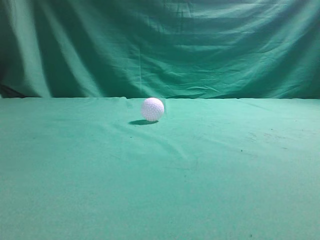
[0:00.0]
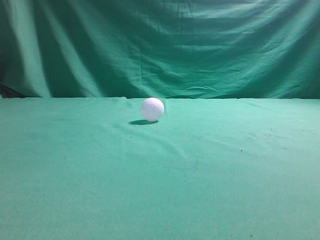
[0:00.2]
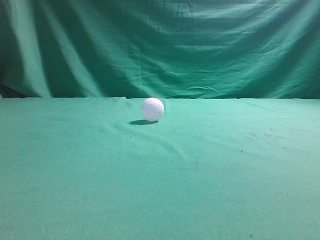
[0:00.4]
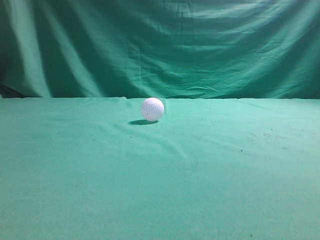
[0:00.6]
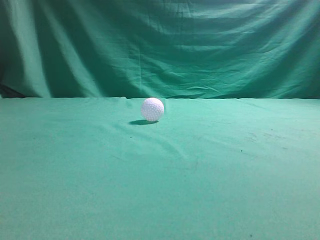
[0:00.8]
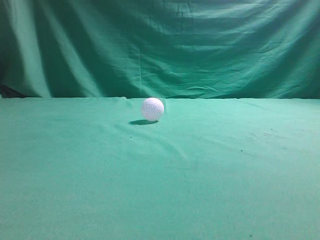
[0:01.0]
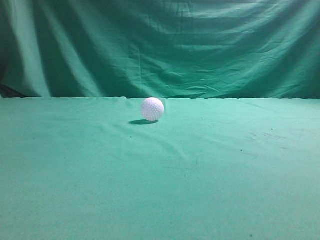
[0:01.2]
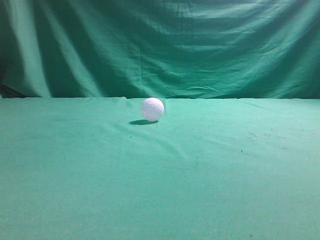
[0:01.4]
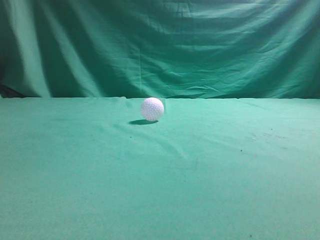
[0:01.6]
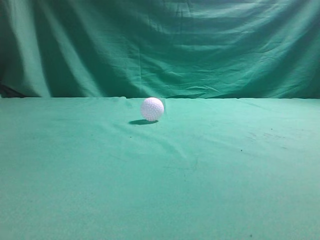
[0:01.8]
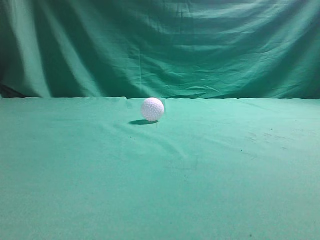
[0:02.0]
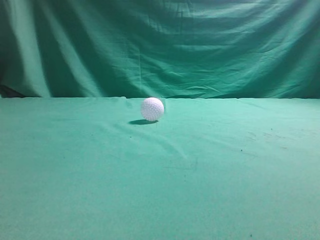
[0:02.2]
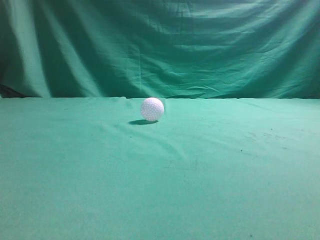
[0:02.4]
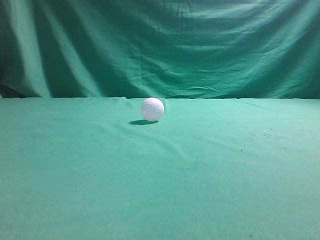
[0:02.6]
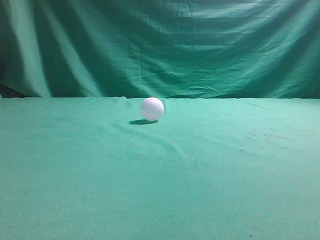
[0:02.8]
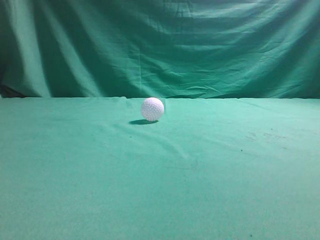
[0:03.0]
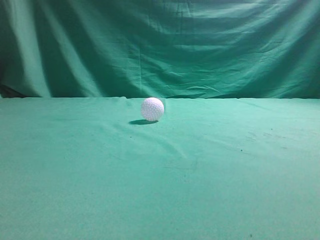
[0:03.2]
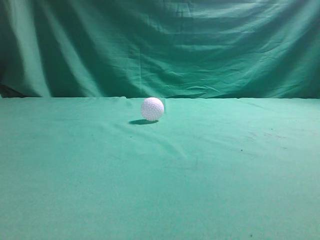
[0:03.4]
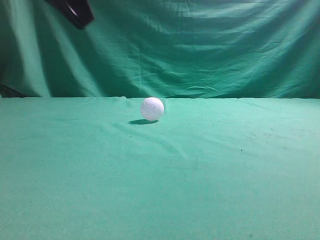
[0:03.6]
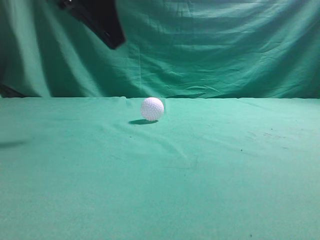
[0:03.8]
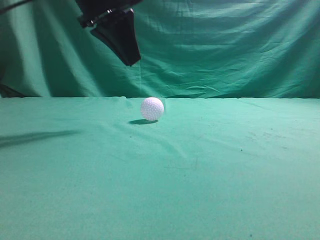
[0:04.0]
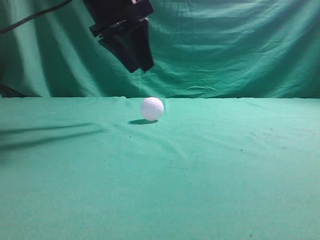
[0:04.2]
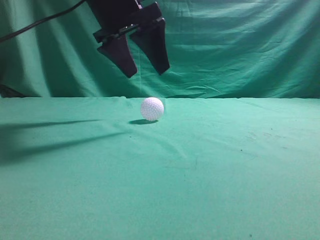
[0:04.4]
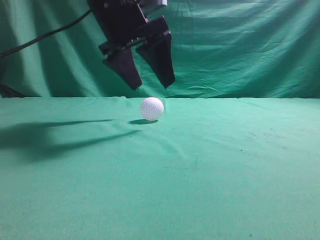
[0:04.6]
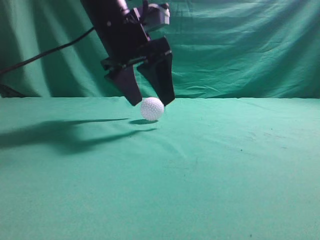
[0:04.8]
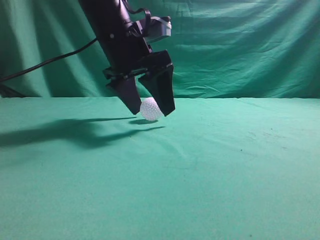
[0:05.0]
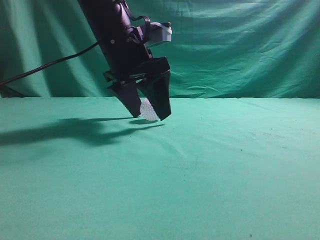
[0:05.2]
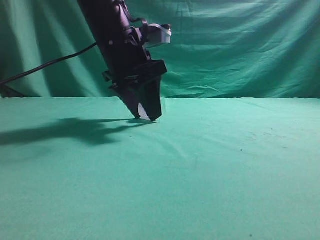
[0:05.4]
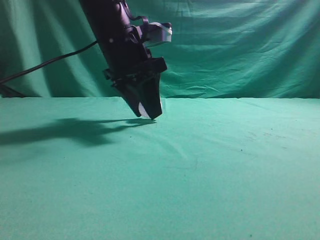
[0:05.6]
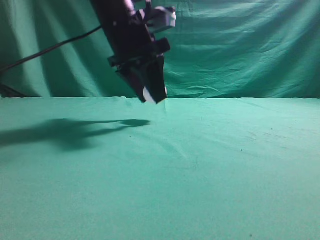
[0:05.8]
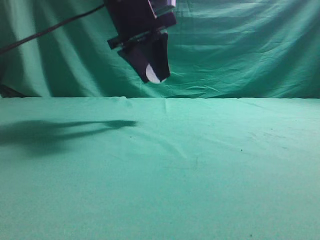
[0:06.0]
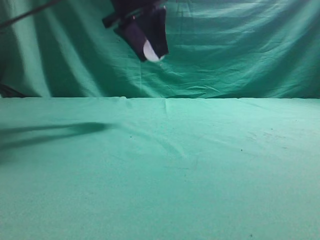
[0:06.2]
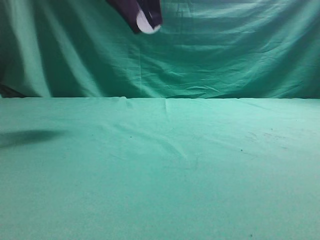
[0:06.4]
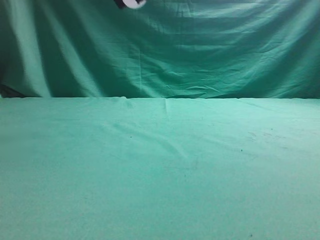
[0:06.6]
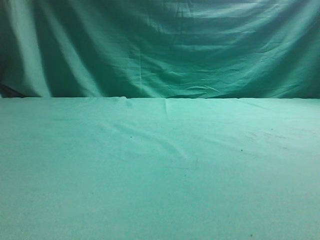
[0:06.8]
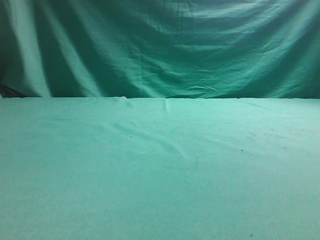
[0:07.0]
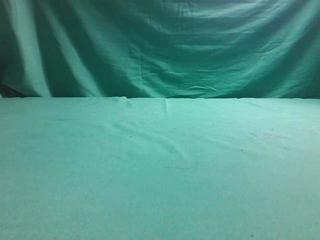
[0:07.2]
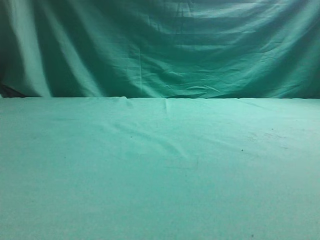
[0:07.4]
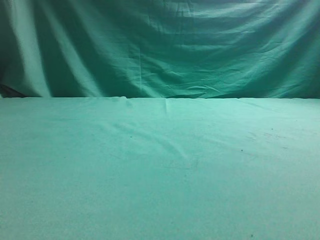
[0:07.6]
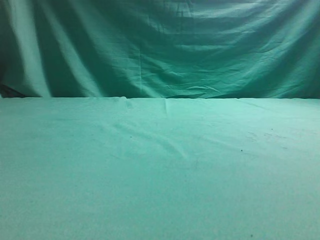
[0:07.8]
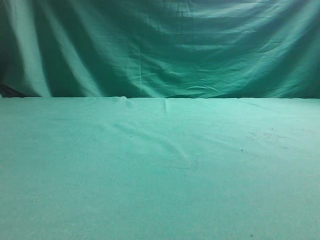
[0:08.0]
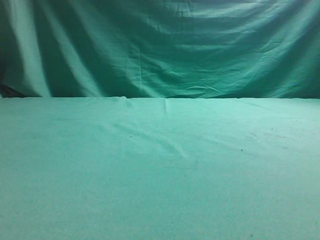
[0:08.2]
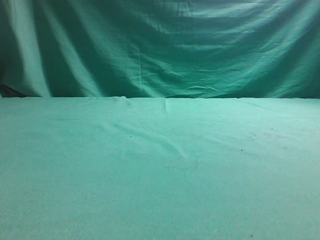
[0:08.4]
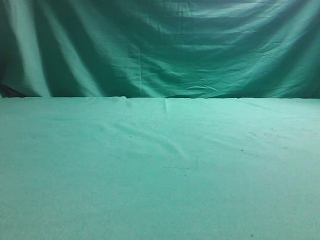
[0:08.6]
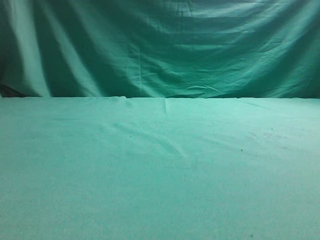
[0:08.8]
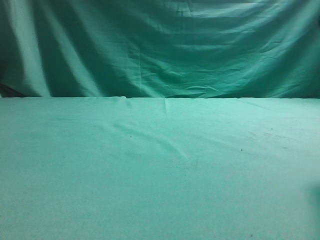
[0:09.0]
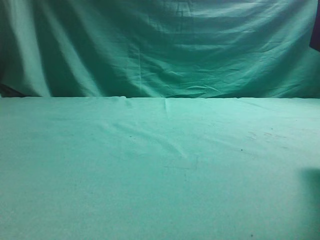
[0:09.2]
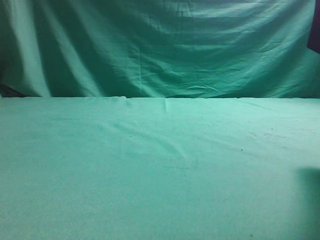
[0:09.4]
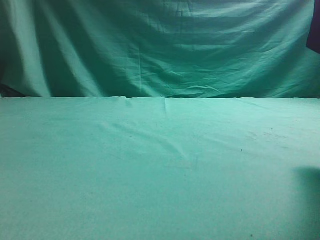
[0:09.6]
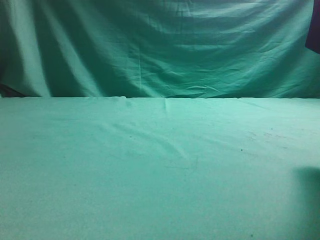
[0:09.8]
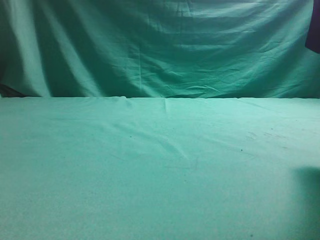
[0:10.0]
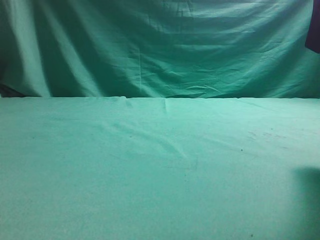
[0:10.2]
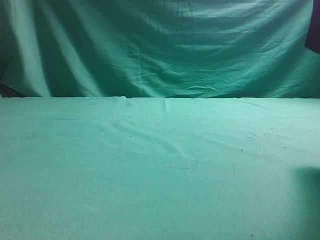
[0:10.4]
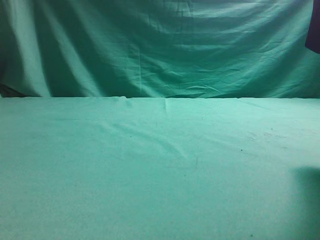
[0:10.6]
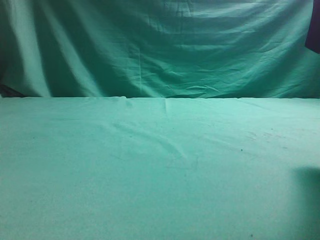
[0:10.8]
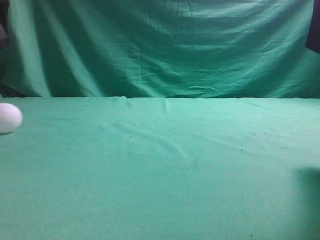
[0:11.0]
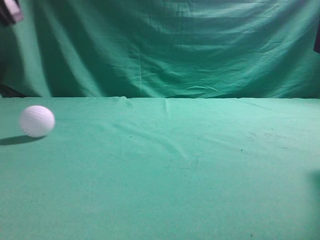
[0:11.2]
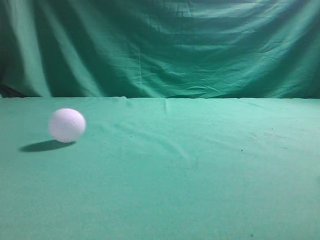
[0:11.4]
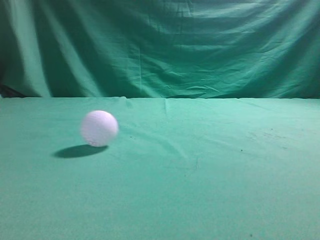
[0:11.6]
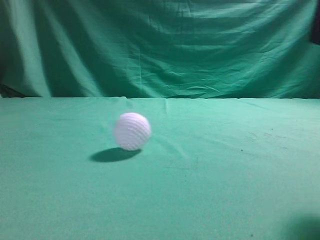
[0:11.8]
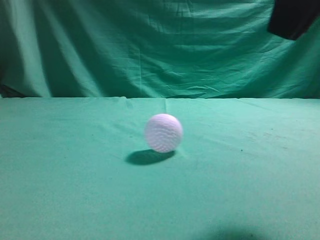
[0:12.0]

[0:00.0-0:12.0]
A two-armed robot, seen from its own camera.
Task of the whole recording: pick up the ball and place it on the plate, then pick up the ball from the plate and put it in the center of the table.
Step, 0:00.0 to 0:05.6: Grab the spherical object with your left arm.
Step, 0:05.8 to 0:10.4: Place the sphere on the white object.
0:03.0 to 0:04.4: The left gripper heads forward and to the right, covering some 30 cm, and opens.
0:04.4 to 0:06.0: The left gripper closes.
0:06.0 to 0:07.6: The left gripper shifts approximately 30 cm to the left, backward and upward.
0:09.0 to 0:10.4: The grippers stay close to where they were, moving slightly.
0:10.4 to 0:12.0: The left gripper shifts approximately 25 cm backward, upward and to the right, and closes up, while the right gripper heads backward and to the left, covering roughly 5 cm.

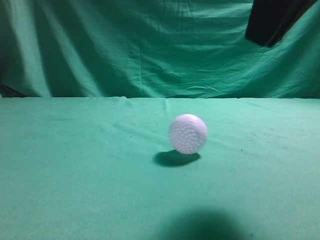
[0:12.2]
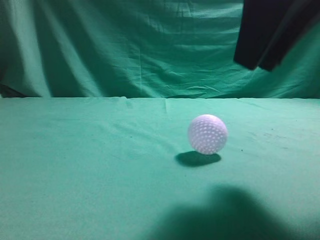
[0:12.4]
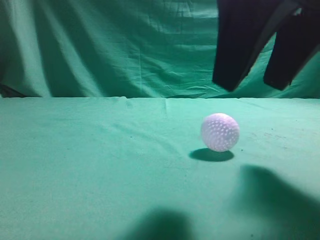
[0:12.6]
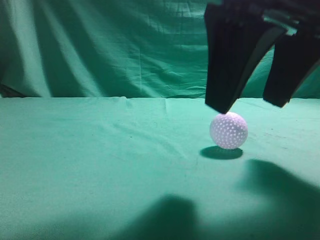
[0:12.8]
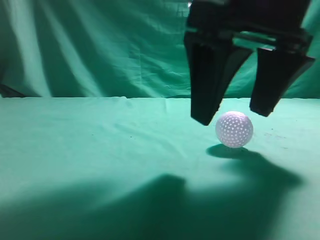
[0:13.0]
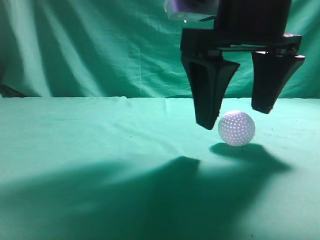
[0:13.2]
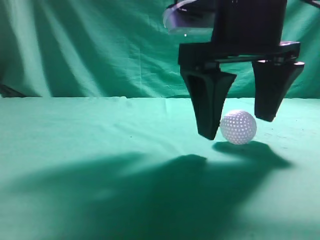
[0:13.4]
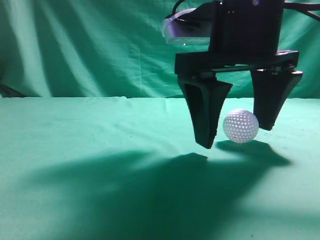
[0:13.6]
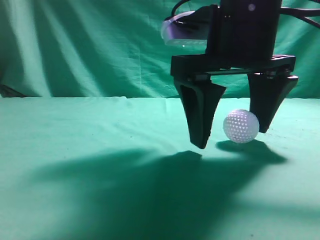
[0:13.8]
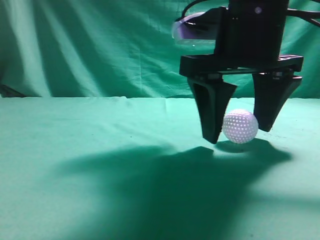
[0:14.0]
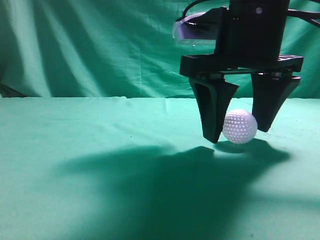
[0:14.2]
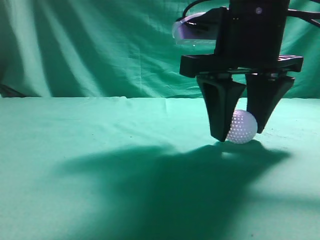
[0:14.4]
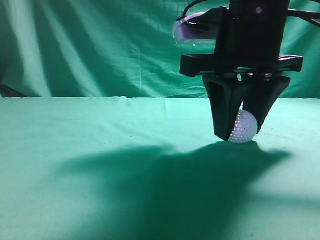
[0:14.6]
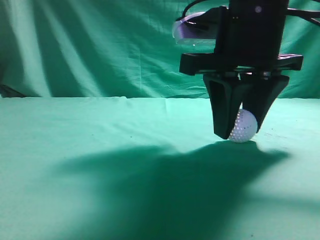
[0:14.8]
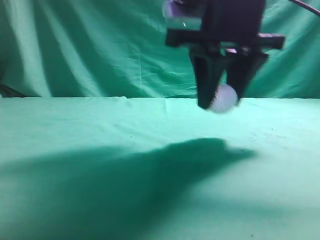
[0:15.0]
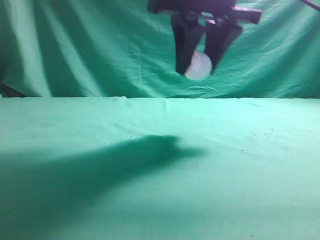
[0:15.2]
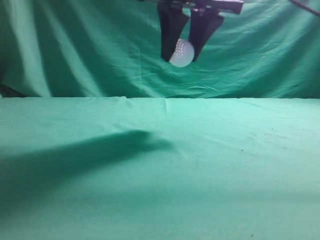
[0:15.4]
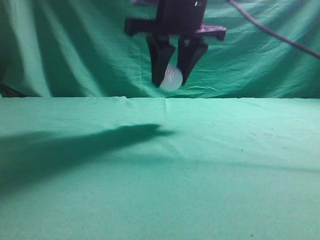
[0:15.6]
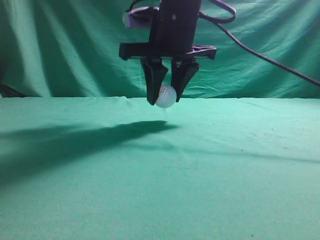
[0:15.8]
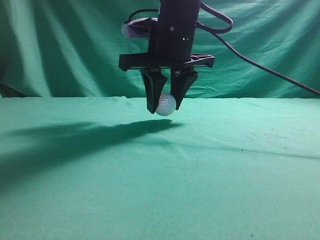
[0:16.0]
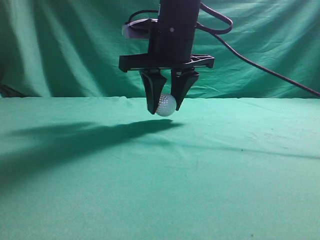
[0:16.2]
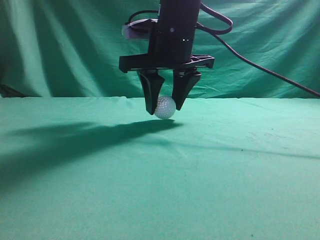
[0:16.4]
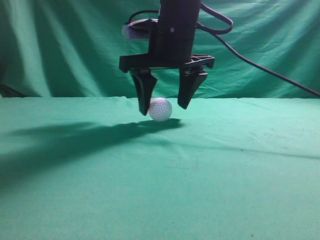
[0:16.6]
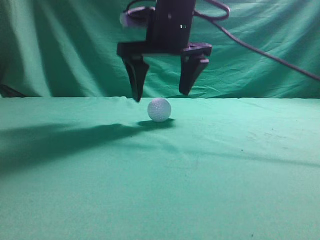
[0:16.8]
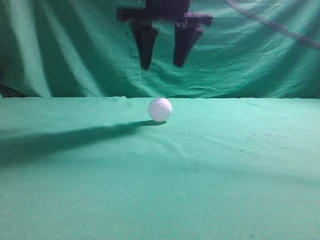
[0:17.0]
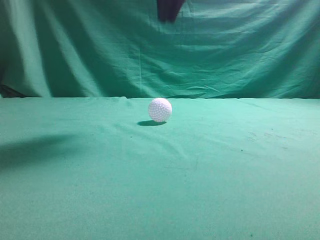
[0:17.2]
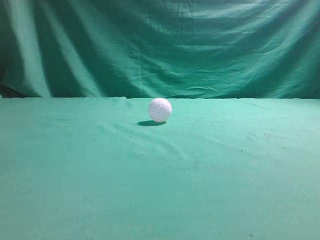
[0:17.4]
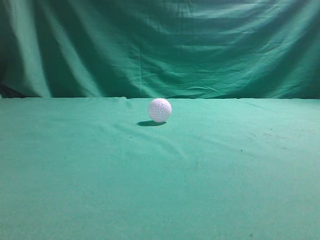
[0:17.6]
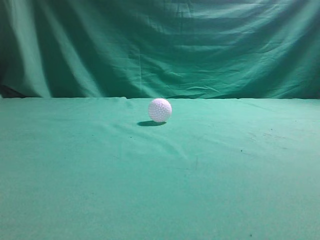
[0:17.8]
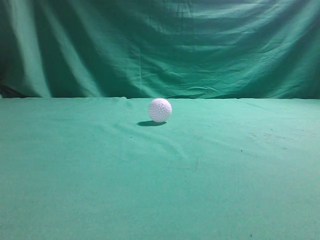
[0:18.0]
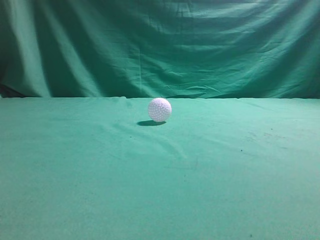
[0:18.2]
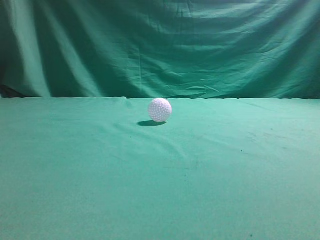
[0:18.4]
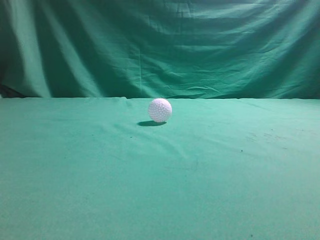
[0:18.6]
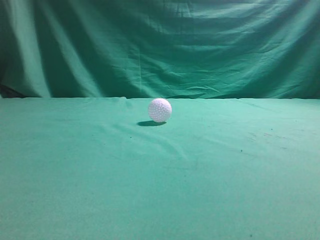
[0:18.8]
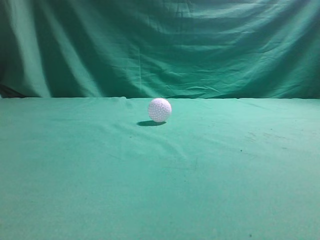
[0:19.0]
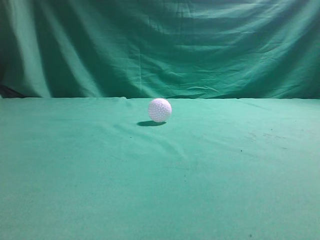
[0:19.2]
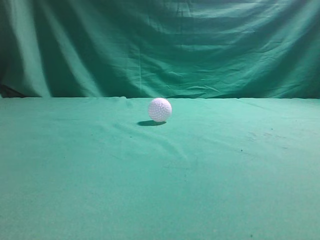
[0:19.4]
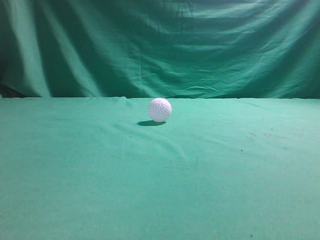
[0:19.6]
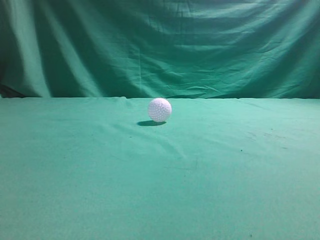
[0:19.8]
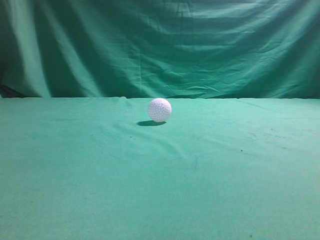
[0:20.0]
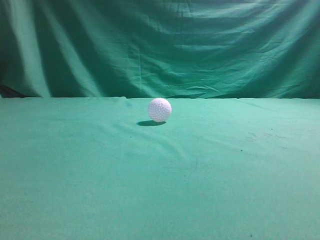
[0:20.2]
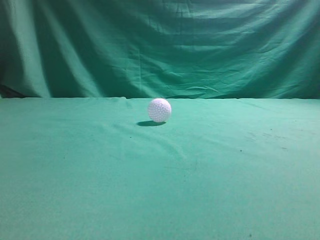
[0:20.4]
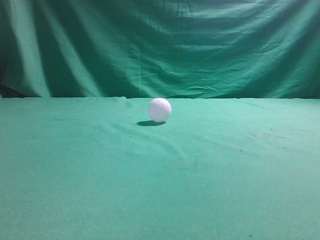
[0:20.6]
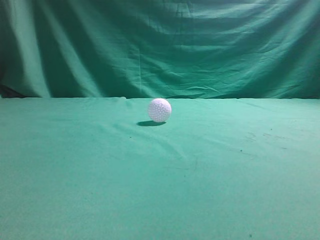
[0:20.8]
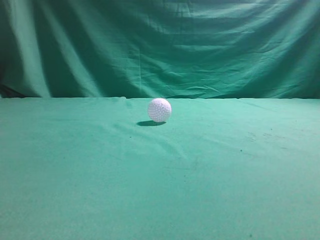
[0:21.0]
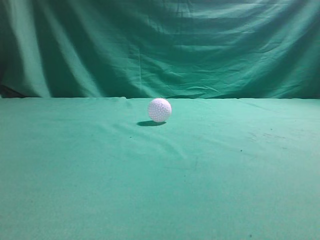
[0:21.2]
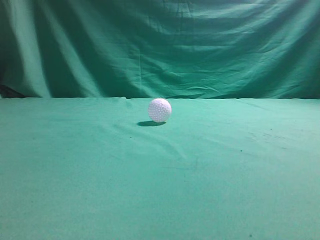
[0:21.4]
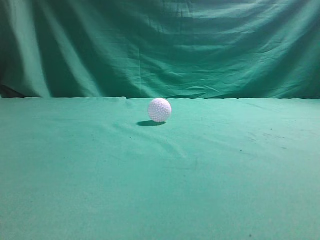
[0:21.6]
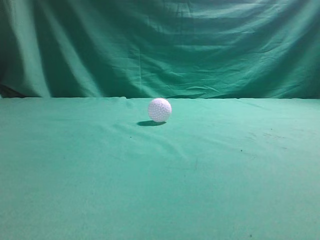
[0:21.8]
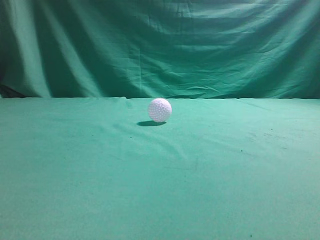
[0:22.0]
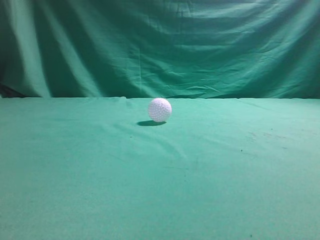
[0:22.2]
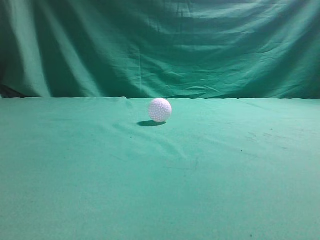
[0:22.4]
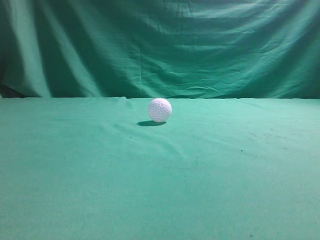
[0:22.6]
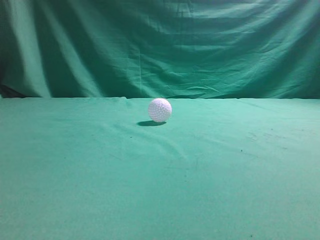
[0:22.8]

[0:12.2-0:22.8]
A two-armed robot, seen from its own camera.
Task of the whole recording: pick up the ball and place it on the plate, then pick up the ball from the plate and put it in the center of the table.
Step, 0:12.2 to 0:14.8: Grab the rolling spherical object.
Step, 0:15.0 to 0:16.8: Put the picked-up object on the table.
0:12.2 to 0:13.8: The right gripper shifts some 10 cm forward and downward, and opens its fingers.
0:13.8 to 0:15.2: The right gripper travels upward by roughly 5 cm, and closes up.
0:15.2 to 0:16.8: The right gripper moves forward and to the left, some 10 cm, and opens up.
0:16.8 to 0:18.2: The right gripper moves upward, backward and to the right, some 35 cm, and closes up, while the left gripper ends up about 5 cm from where it was.
